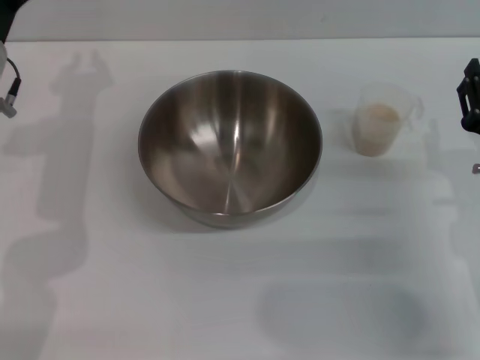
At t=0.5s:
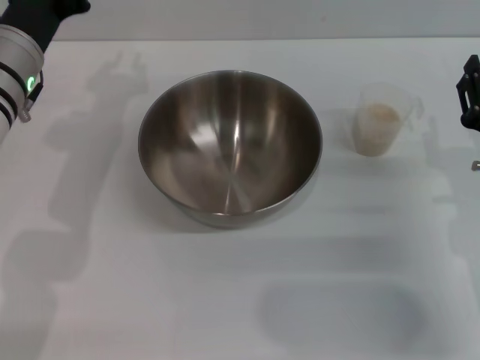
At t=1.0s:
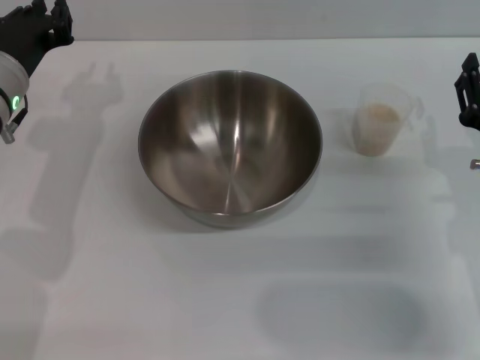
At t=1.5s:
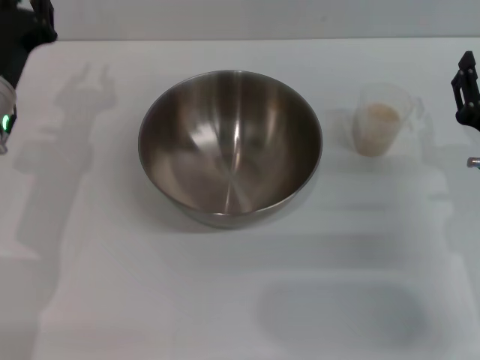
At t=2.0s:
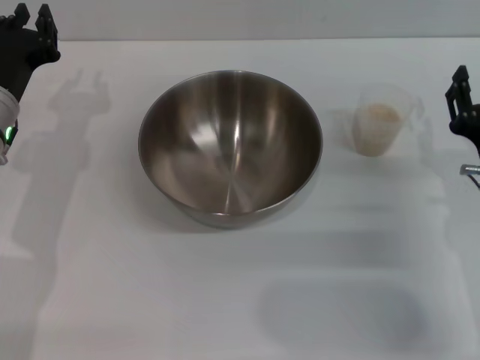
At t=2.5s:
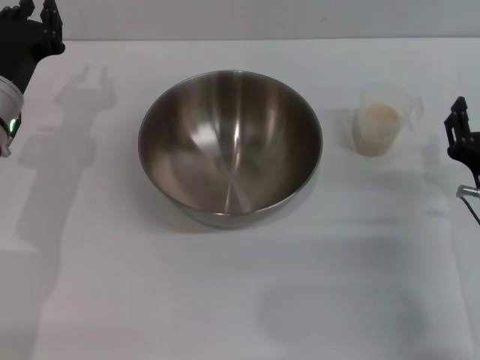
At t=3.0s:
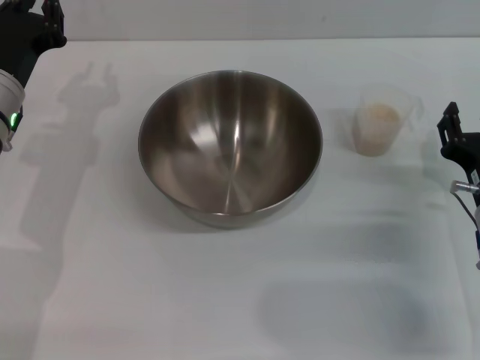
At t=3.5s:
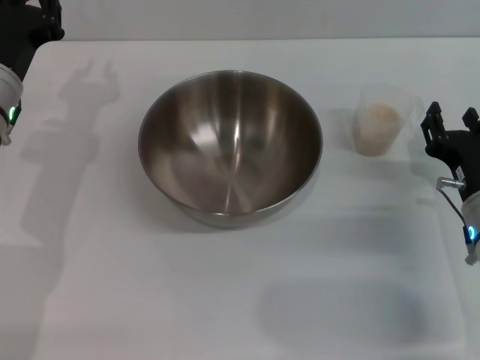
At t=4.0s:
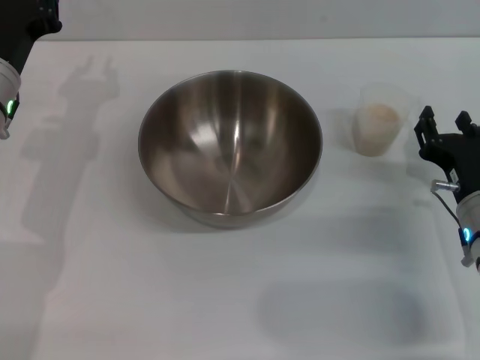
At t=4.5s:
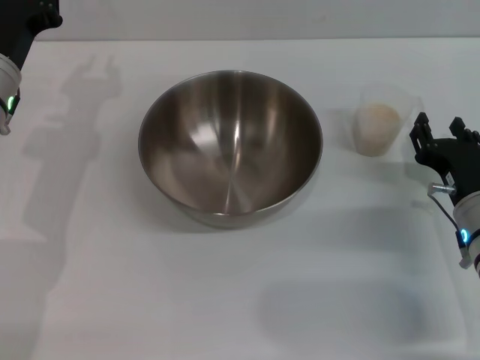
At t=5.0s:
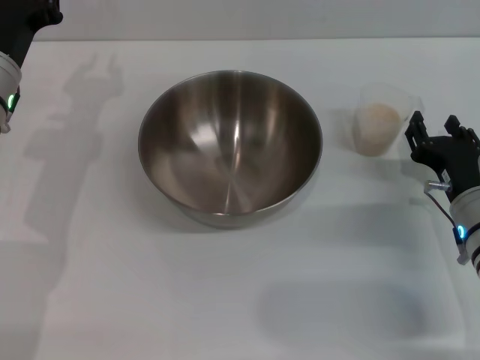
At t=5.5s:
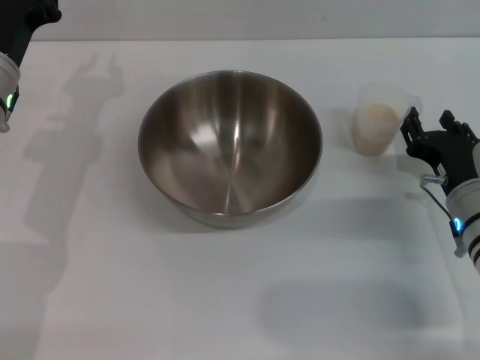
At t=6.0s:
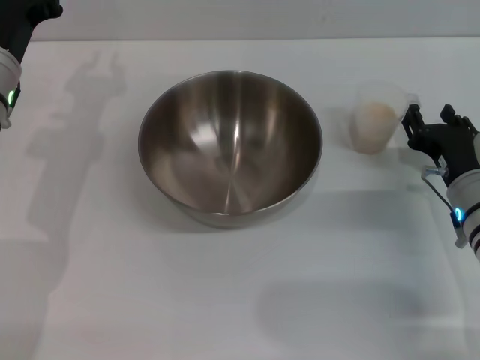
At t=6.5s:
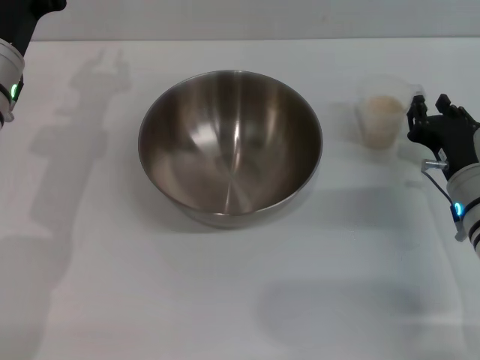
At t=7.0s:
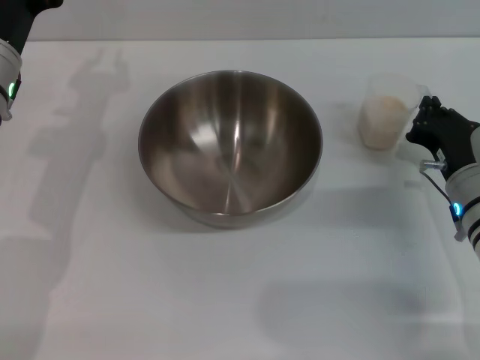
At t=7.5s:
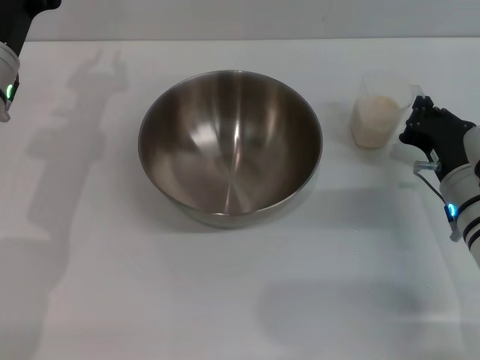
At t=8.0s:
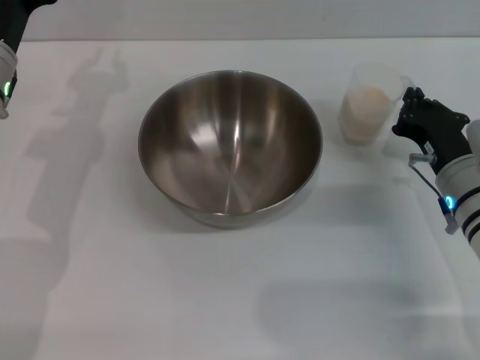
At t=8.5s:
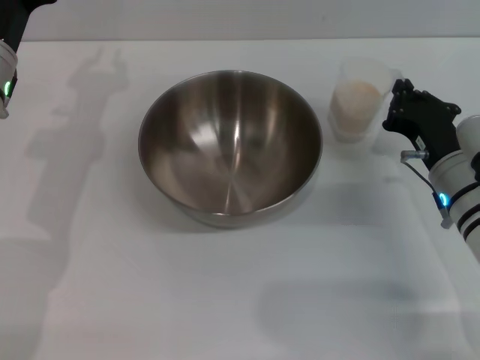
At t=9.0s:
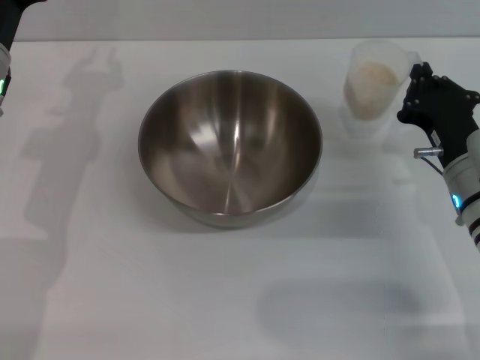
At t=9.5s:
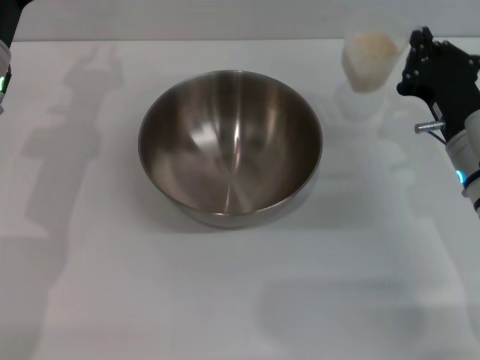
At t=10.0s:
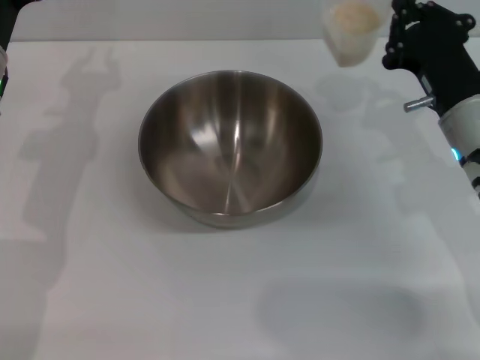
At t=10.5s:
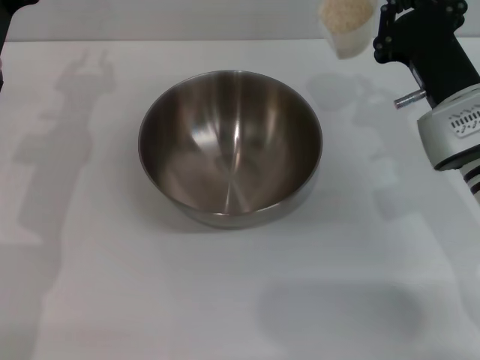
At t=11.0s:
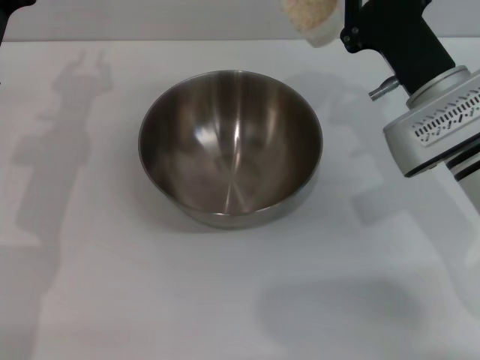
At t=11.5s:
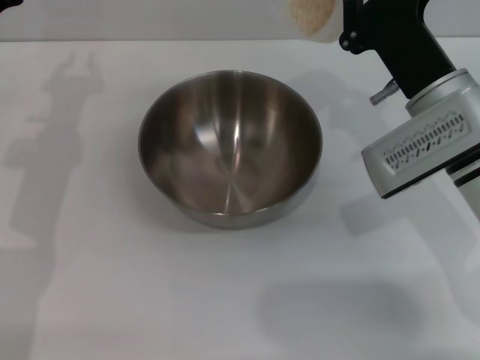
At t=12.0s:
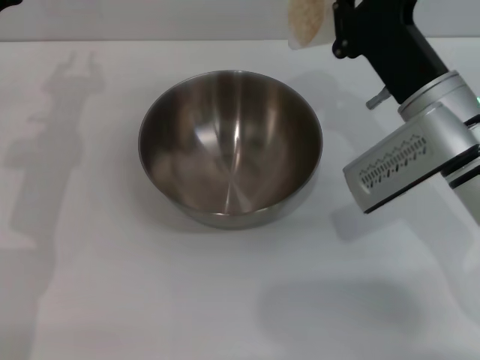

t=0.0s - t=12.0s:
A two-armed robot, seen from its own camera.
Task of the whole recording: Place the bowl in the middle of the table with one hand and pour the rice from the grain cup into it with the other hand.
Step, t=0.0s - t=9.0s: Pick up the cup with rice in it with the right gripper.
t=0.0s - t=2.0s: The left gripper travels downward by approximately 5 cm.
t=2.0s - t=6.0s: The grippers move only a little.
t=6.0s - t=8.0s: The right gripper closes its fingers.
t=8.0s - t=10.0s: The right gripper heads upward, covering approximately 5 cm.

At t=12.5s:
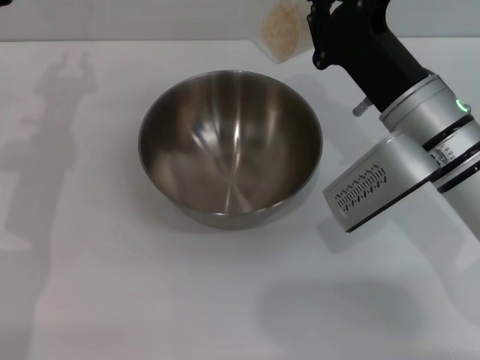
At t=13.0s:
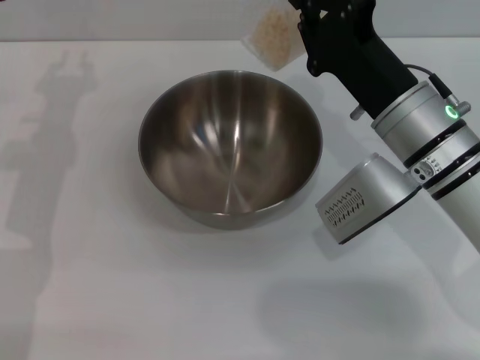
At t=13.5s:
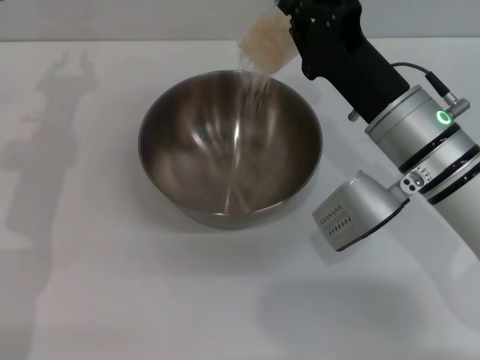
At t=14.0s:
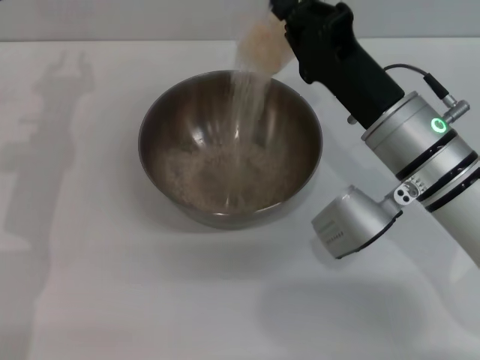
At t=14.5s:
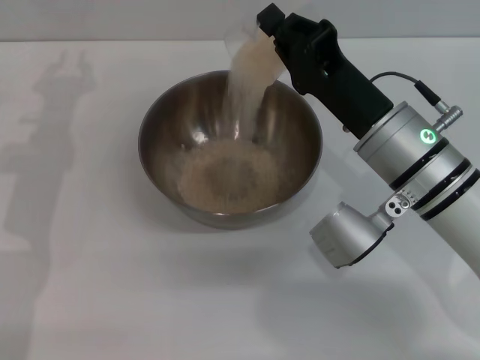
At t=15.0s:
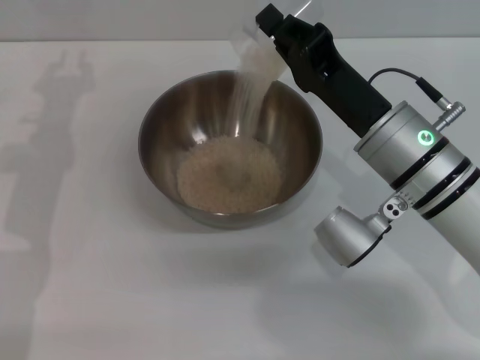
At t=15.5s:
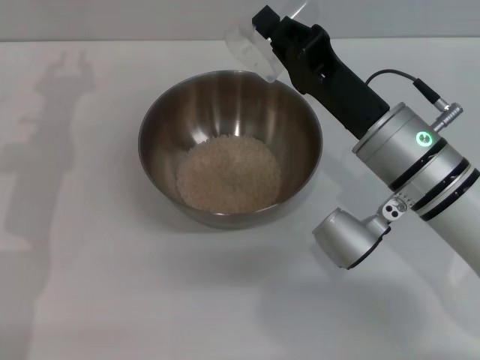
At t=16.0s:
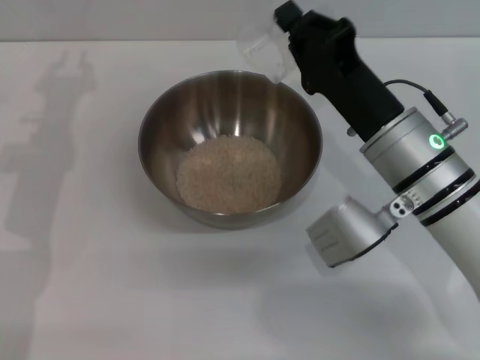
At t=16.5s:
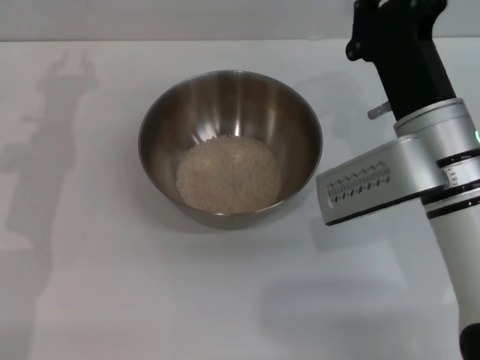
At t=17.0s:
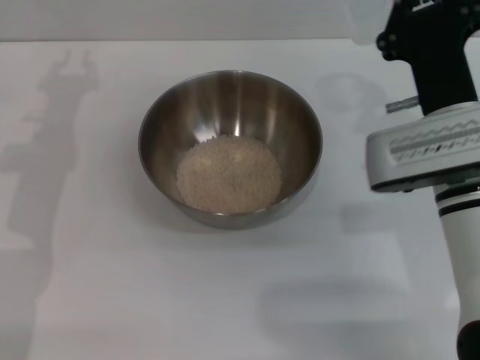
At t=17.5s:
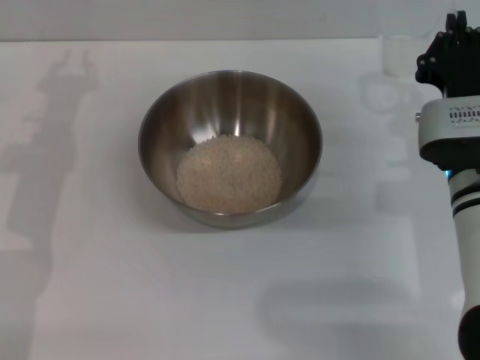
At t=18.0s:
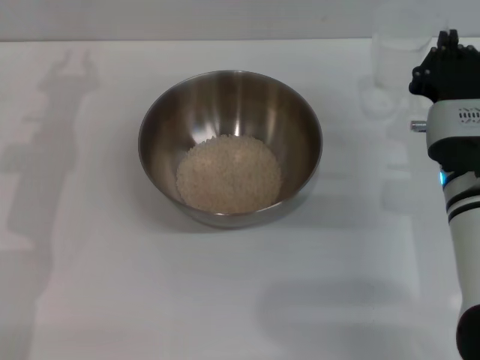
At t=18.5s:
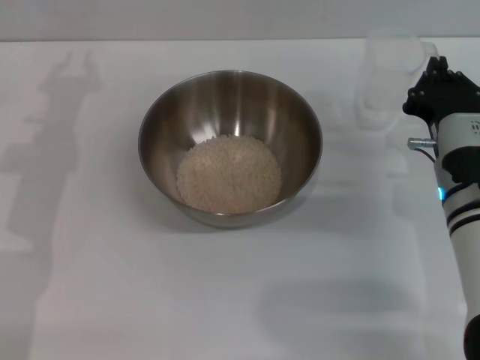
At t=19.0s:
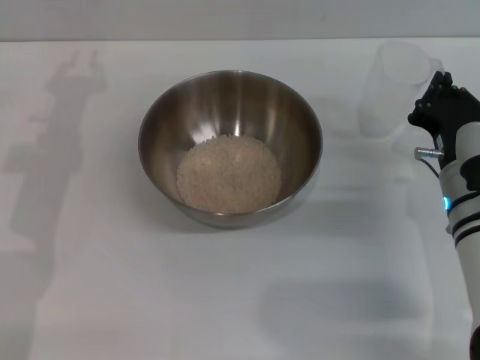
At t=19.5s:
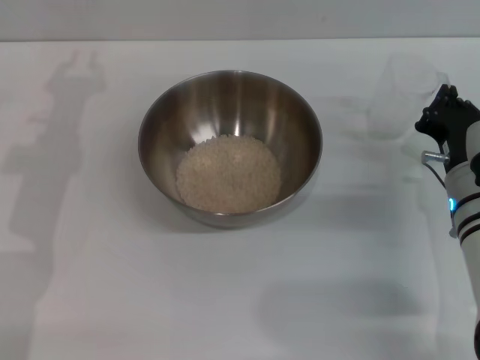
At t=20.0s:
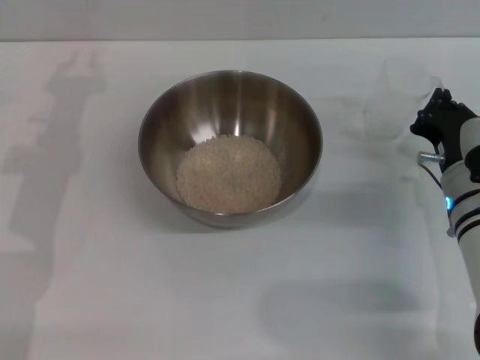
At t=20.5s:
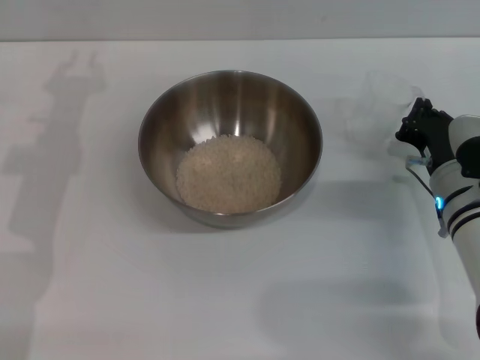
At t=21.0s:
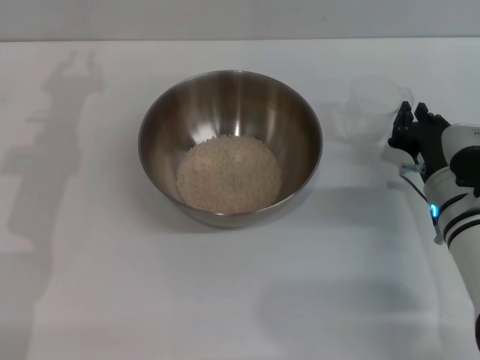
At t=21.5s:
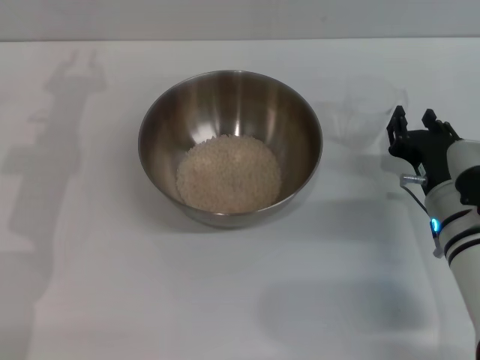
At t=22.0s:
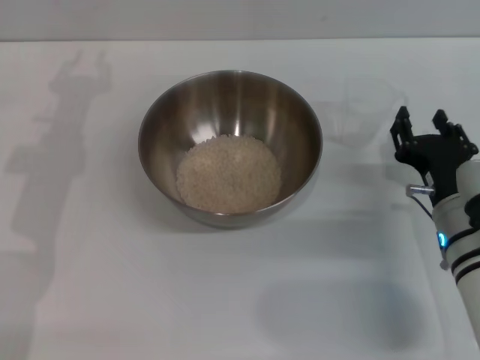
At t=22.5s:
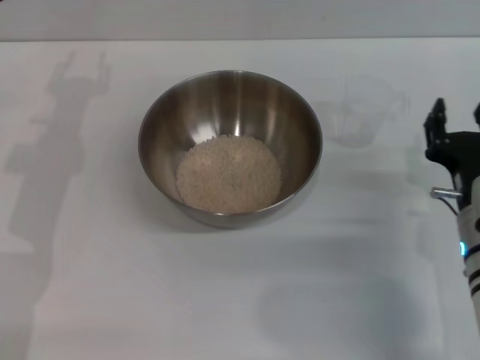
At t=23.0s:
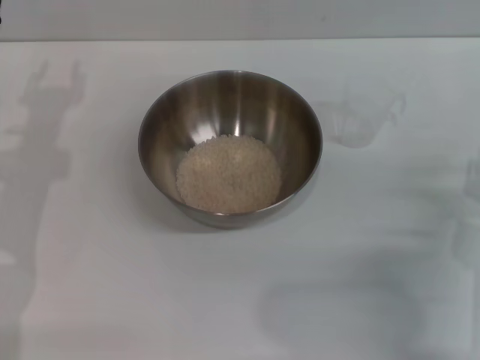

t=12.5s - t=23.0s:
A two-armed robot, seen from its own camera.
Task of the whole recording: Place the bowl in the middle of the table with one hand and pour the rice from the grain cup into it with the other hand.
Step, t=12.5s - t=16.0s: Pour the rice from the cup into the bowl with the right gripper.
Step, t=16.5s - t=22.0s: Place the cup on the table with the right gripper.
t=16.5s - t=19.0s: The right gripper is displaced downward and to the right by some 10 cm.
t=19.0s - t=21.0s: The grippers stay close to where they were, moving slightly.
t=21.0s - t=23.0s: The right gripper goes roughly 10 cm backward, and opens.
